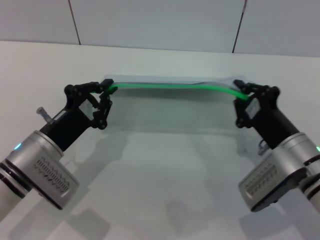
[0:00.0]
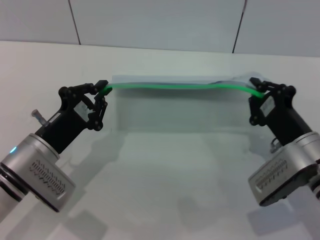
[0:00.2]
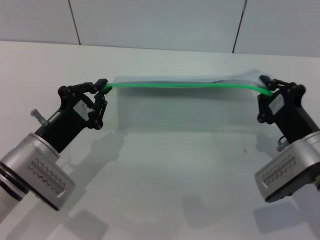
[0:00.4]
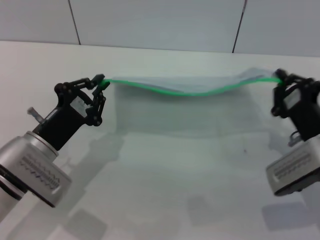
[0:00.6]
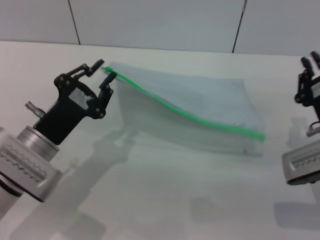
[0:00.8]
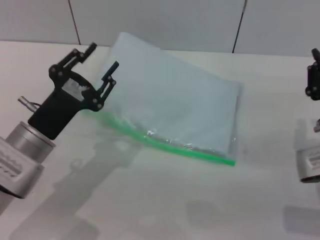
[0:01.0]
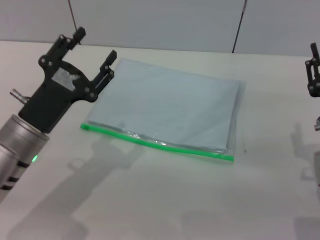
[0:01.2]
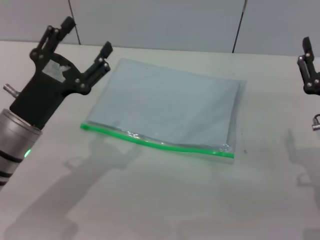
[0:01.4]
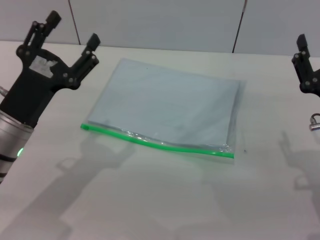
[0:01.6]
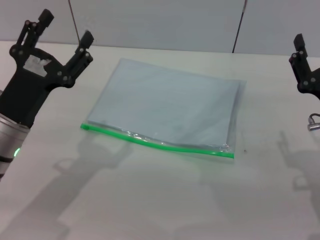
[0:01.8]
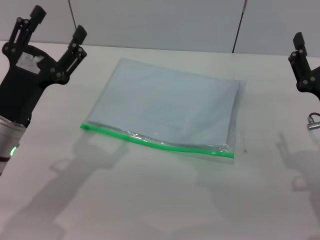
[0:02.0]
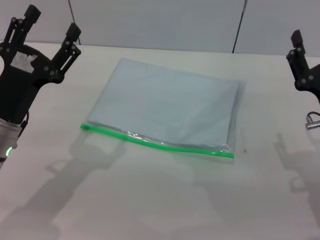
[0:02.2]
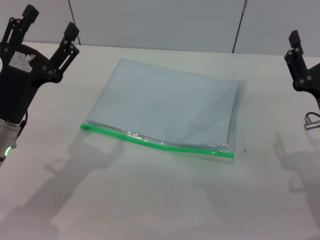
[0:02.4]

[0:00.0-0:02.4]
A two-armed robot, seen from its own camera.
Step, 0:00.8 to 0:01.2: Place the transparent plastic bag.
0:00.0 to 0:01.2: The right gripper goes about 5 cm to the right, and opens up. The left gripper opens its fingers.
0:01.2 to 0:02.4: The left gripper opens. The right gripper opens up.
